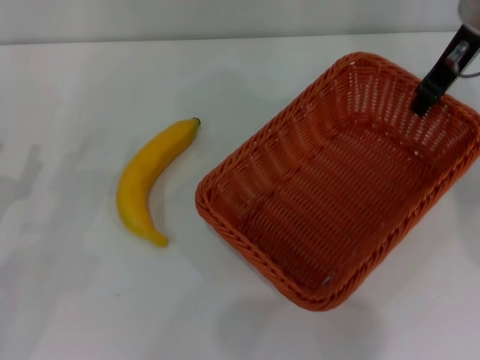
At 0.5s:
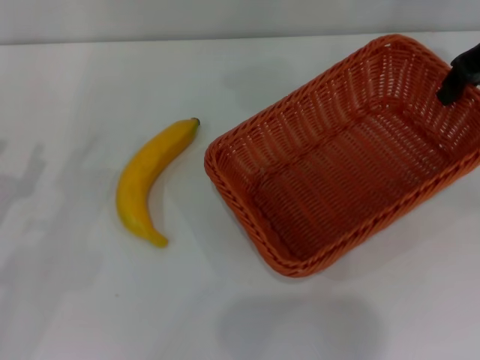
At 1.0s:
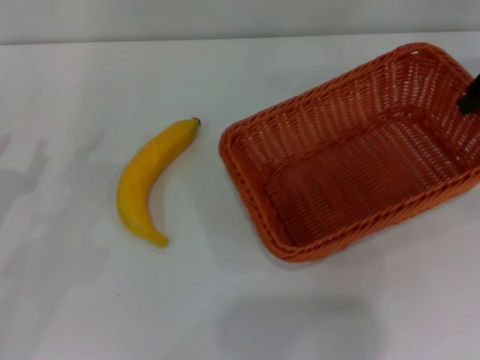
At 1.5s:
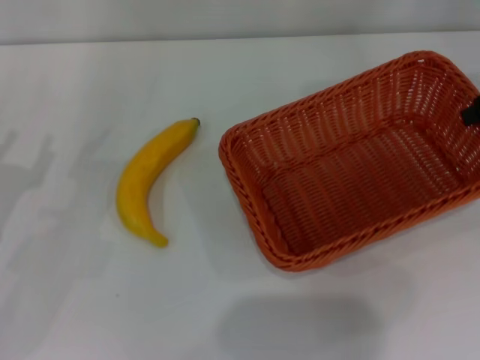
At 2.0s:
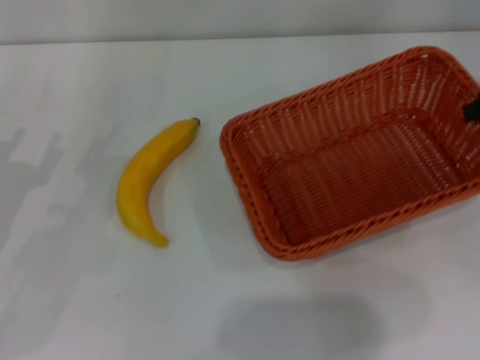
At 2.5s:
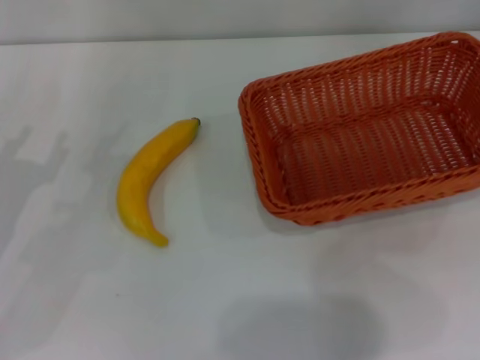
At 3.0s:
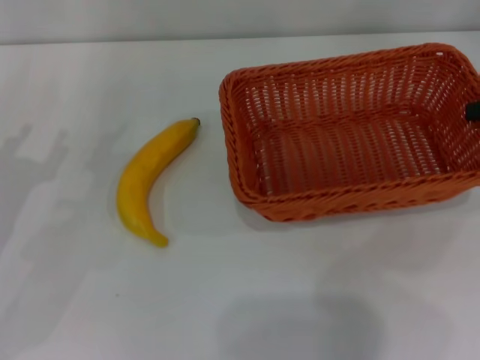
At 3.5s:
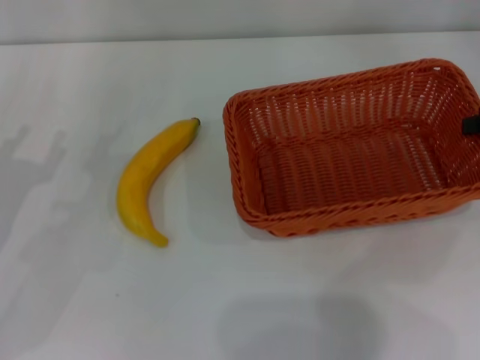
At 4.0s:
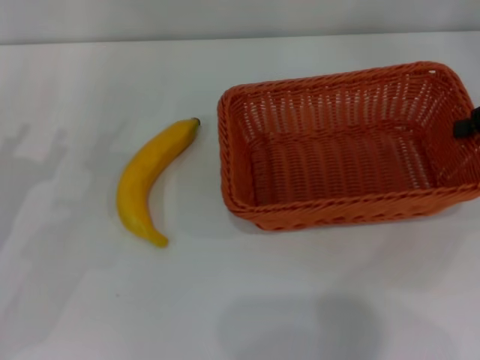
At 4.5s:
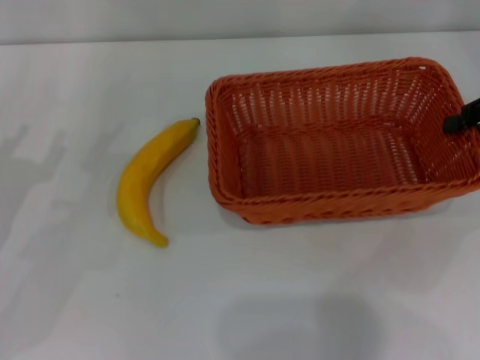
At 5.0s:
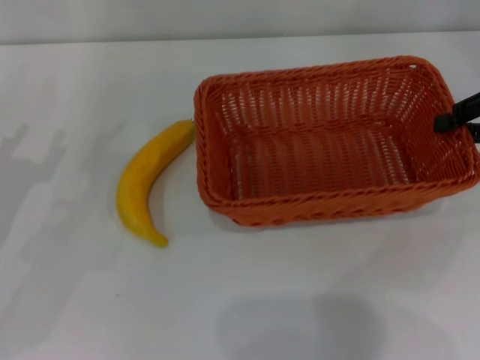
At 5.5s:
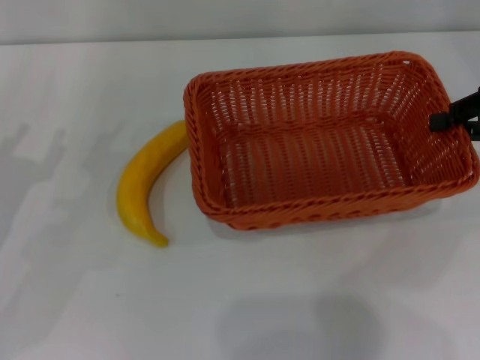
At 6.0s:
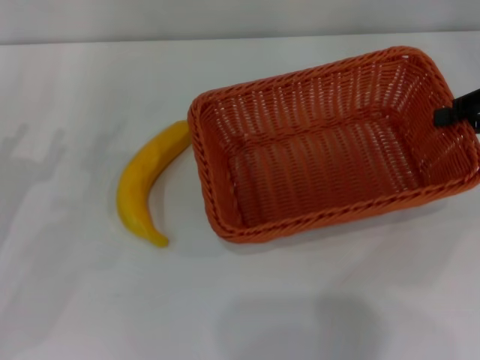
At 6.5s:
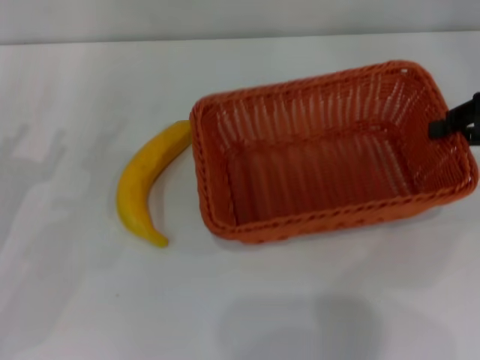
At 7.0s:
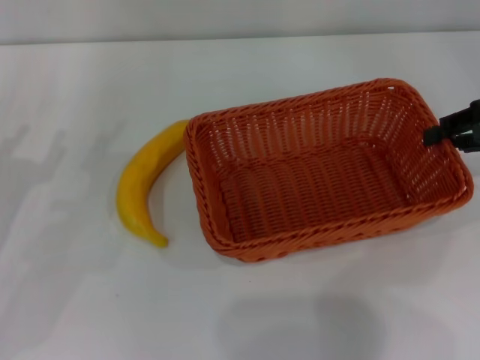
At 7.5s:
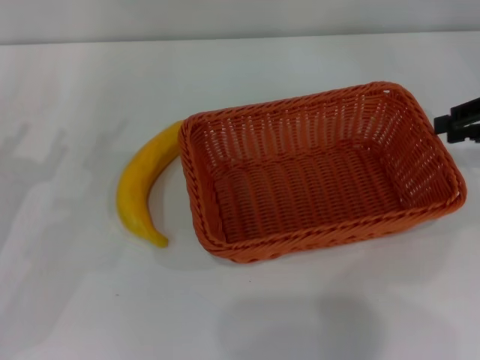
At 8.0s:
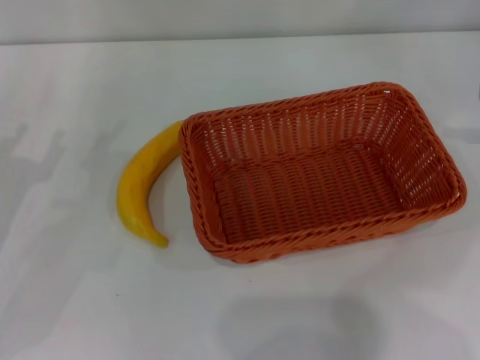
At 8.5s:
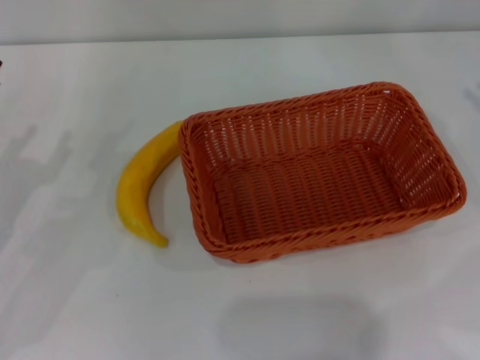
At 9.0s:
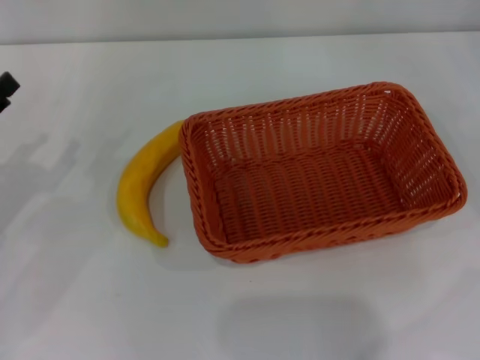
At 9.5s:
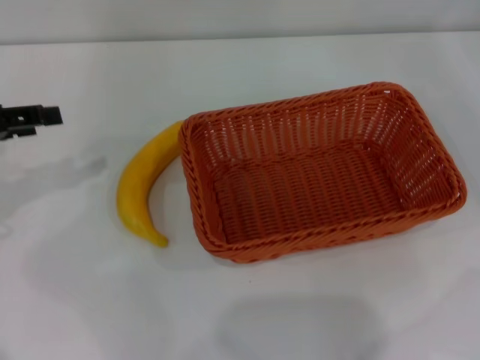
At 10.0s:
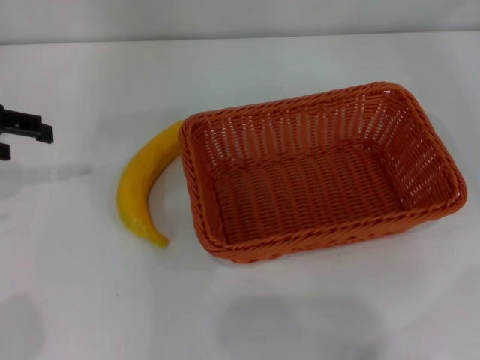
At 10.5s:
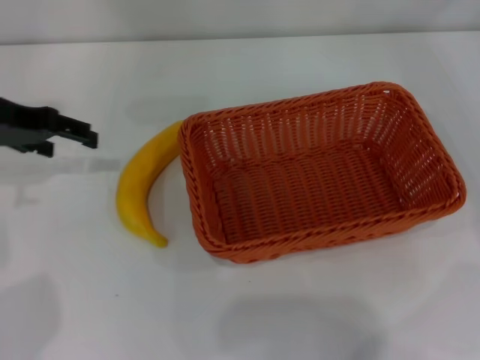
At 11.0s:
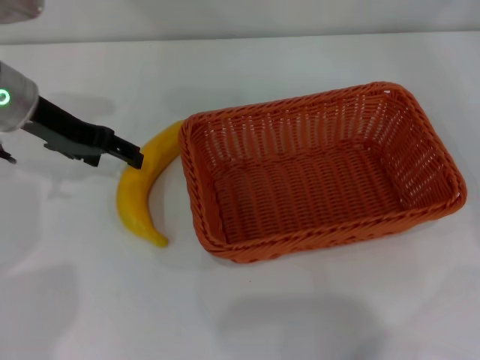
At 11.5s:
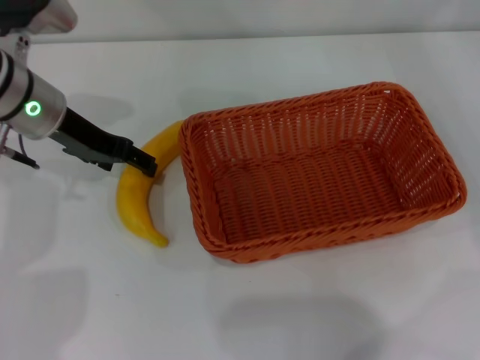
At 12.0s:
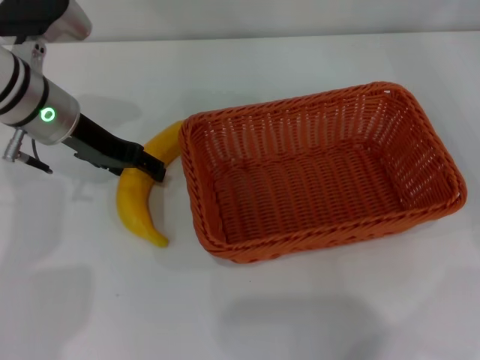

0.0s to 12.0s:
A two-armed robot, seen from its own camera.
Step, 0.5s to 7.5s: Place the light basket in the center of view with the right gripper.
0.0s to 2.0s: The right gripper goes approximately 15 cm to the right.
2.0s to 4.0s: The right gripper changes place by some 5 cm.
4.0s to 8.0s: There are only small adjustments of the grippers.
8.0s to 10.0s: The left gripper travels upward and forward by roughly 15 cm, and opens up.
10.0s to 12.0s: The left gripper goes about 15 cm to the right, downward and forward.

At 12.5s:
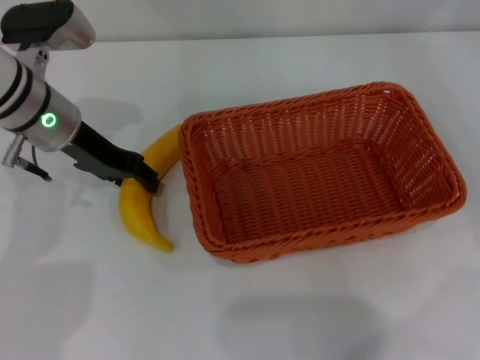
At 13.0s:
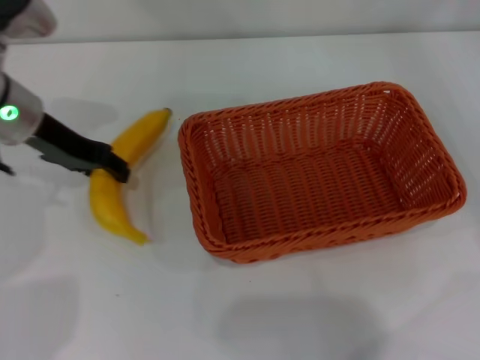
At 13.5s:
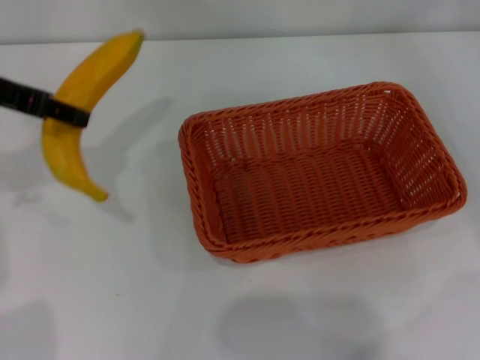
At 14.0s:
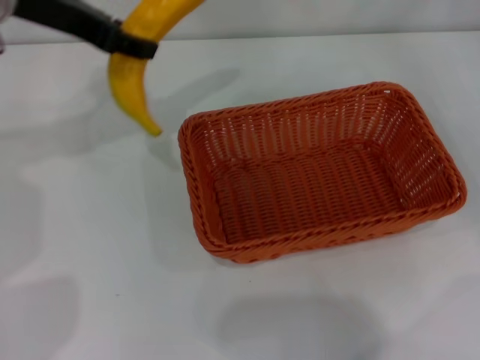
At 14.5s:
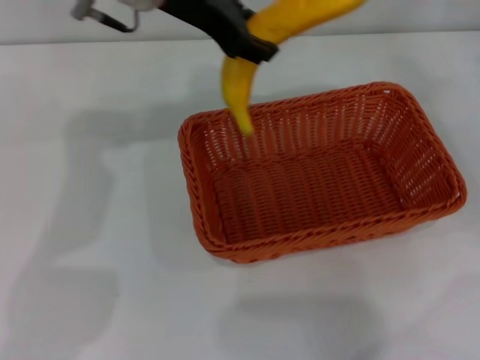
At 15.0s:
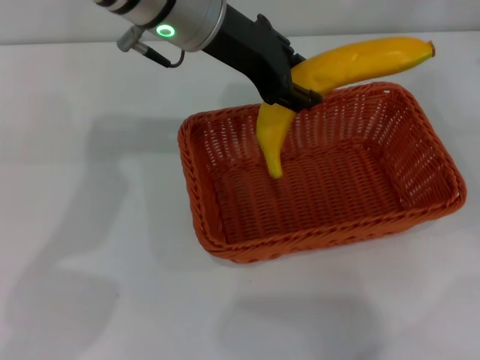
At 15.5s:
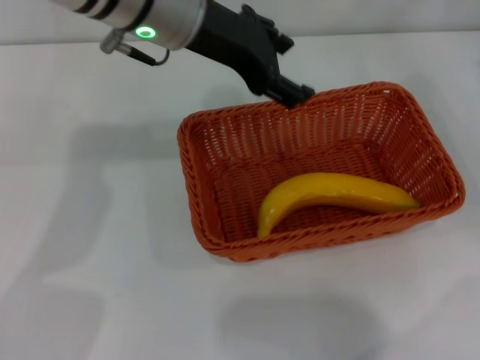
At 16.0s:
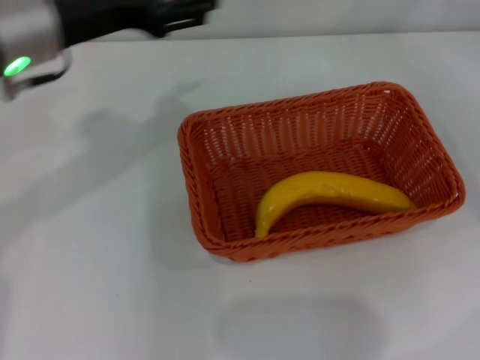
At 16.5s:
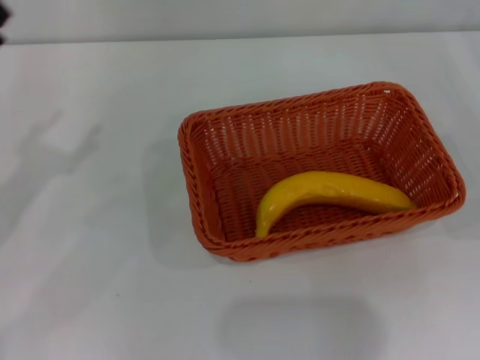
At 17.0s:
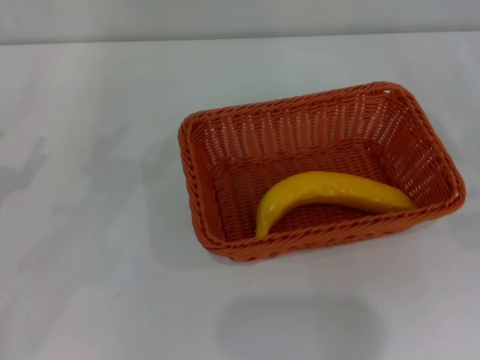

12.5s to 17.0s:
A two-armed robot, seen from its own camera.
Step, 13.5s to 15.0s: Place the banana into the light basket with the left gripper.
12.5s to 14.5s: The left gripper heads upward and to the right, covering approximately 15 cm.
14.5s to 17.0s: The left gripper is displaced to the left, backward and downward by about 35 cm, and opens; the right gripper heads downward and backward, covering approximately 15 cm.

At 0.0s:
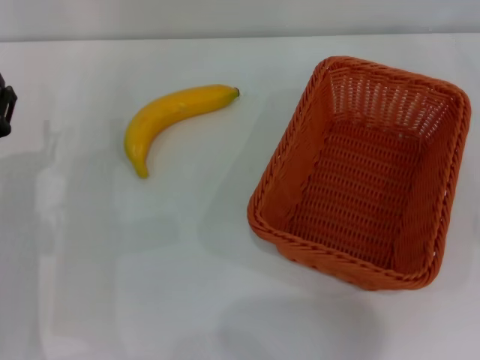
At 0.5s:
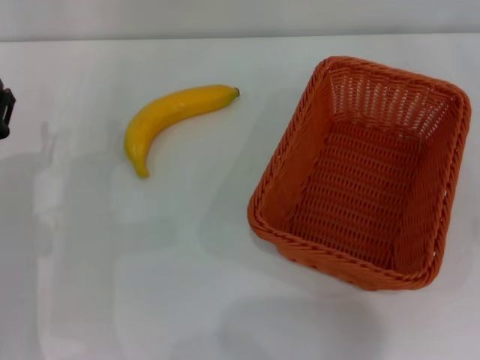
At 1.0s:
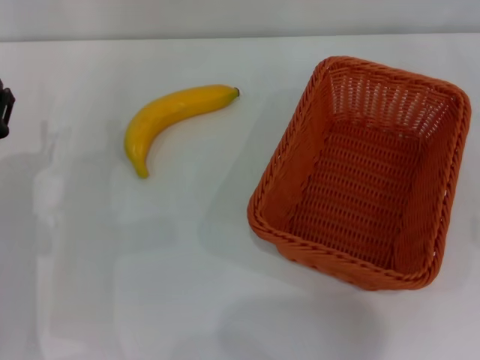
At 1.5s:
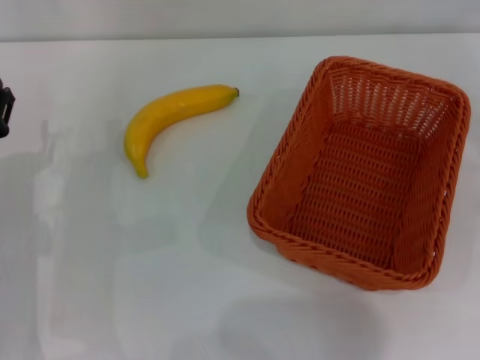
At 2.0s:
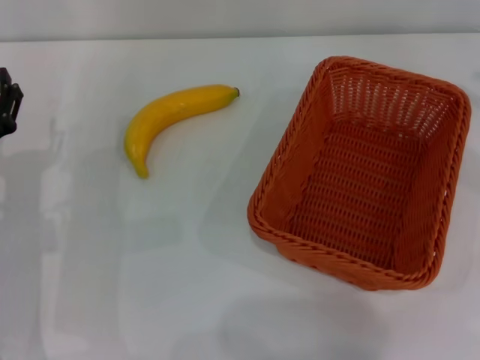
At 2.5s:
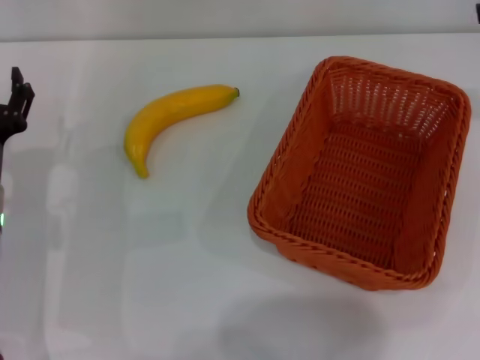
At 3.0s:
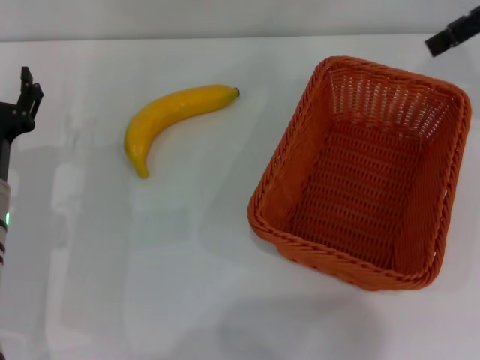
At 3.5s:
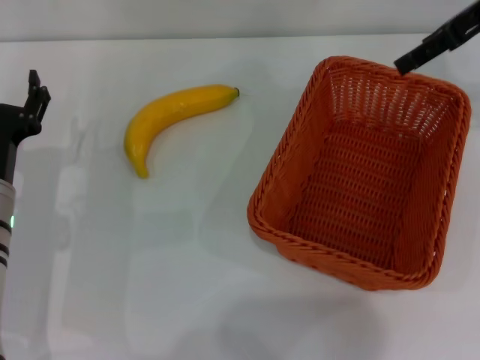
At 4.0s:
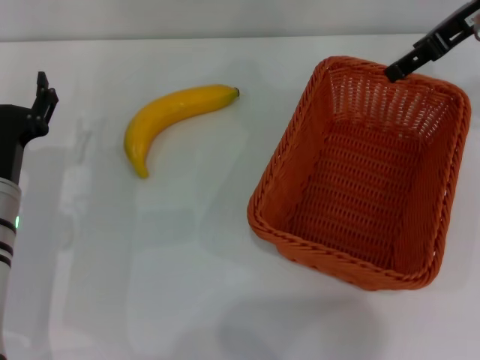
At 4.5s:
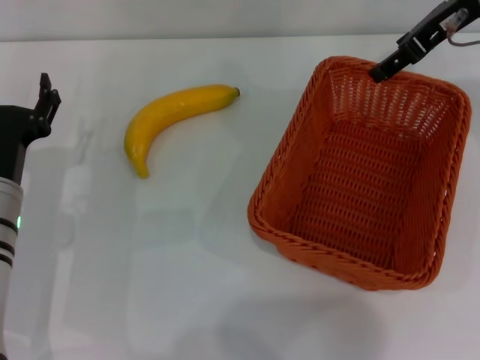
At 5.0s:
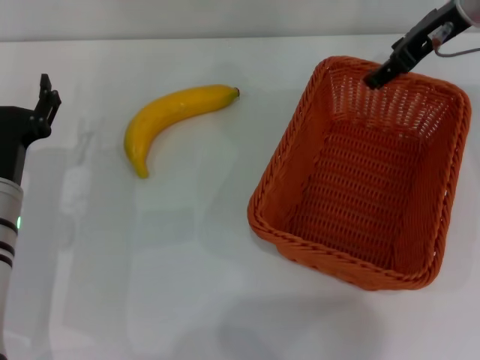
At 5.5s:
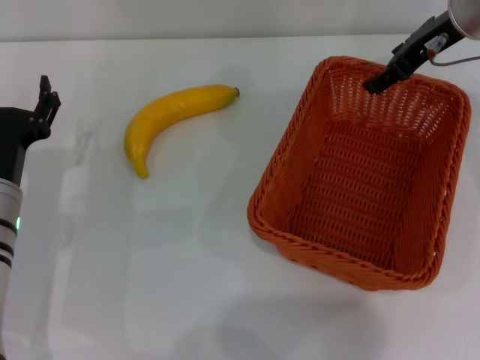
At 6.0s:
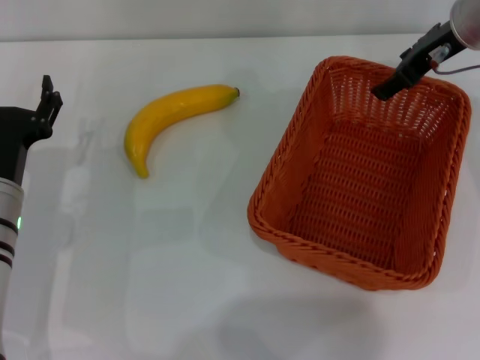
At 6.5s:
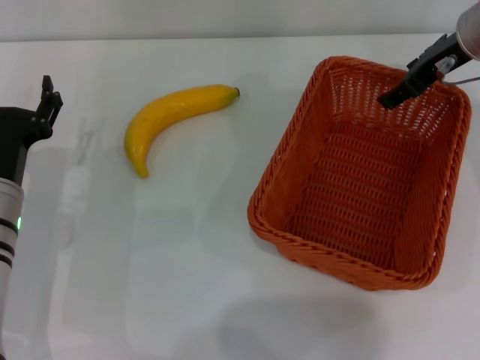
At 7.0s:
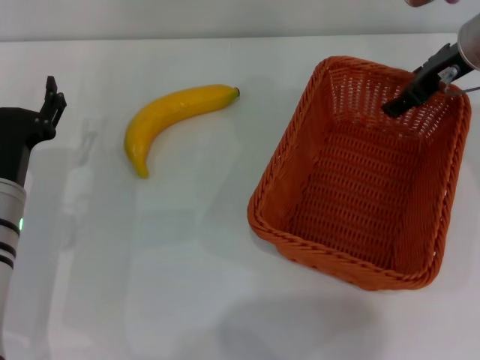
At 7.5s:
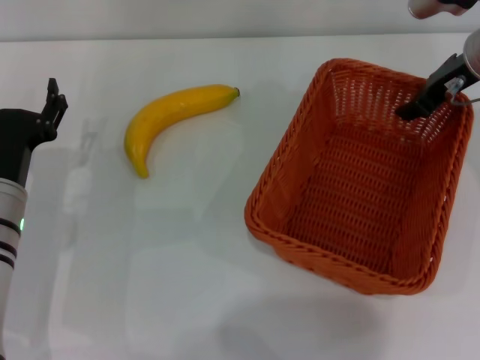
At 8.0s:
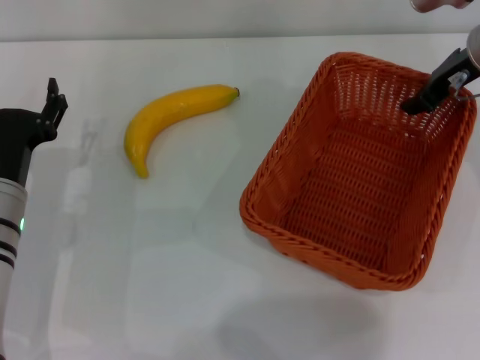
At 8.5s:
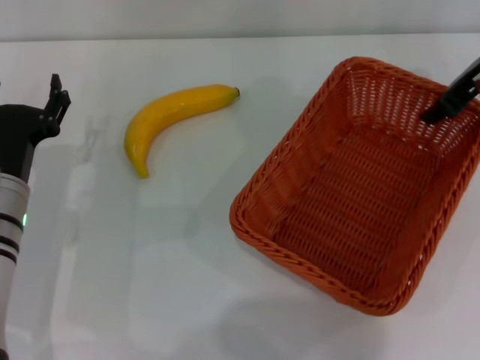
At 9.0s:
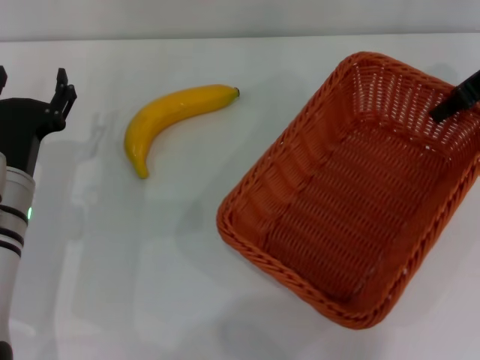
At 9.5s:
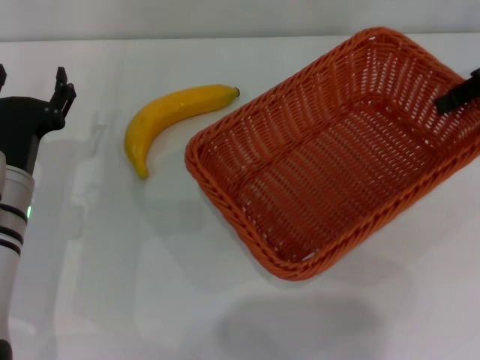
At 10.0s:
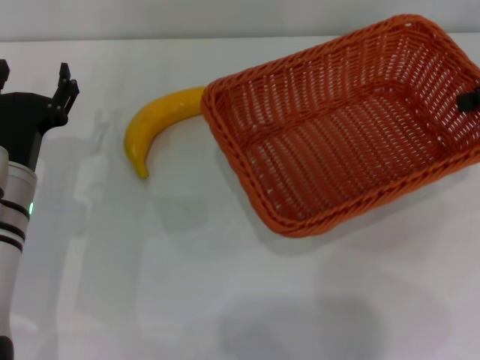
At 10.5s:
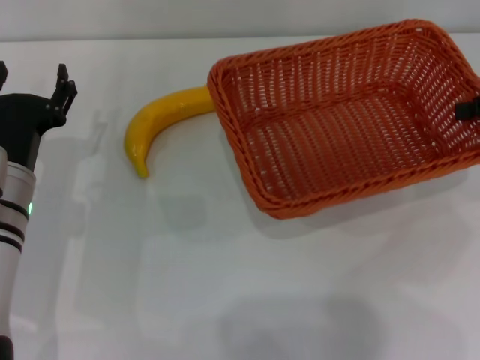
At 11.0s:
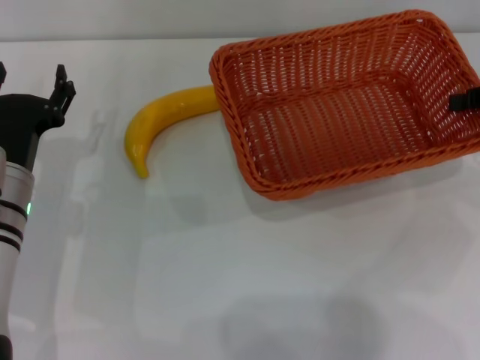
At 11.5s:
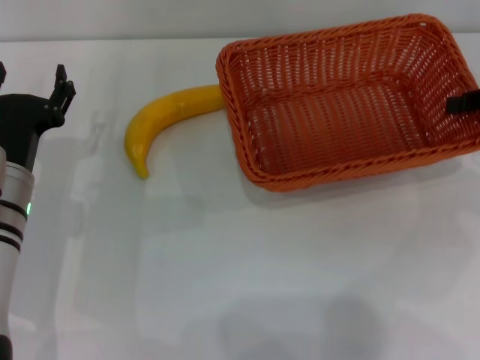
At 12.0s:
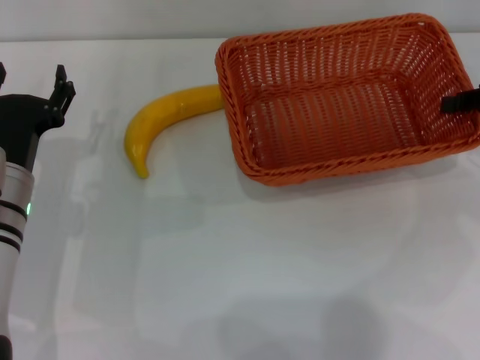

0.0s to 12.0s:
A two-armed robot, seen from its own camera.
Step, 0.0s to 9.5s: Pick up the light basket with the right gripper.
2.0s to 4.0s: The right gripper travels to the left and forward by roughly 20 cm.
4.0s to 6.0s: The right gripper shifts some 5 cm downward.
6.0s to 8.0s: The right gripper closes up.
8.0s to 10.0s: The right gripper moves to the right, about 10 cm.
10.0s to 12.0s: The right gripper shifts approximately 5 cm downward.
